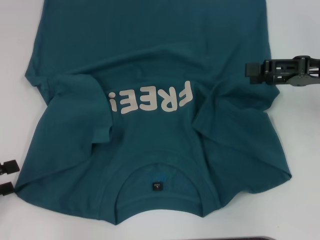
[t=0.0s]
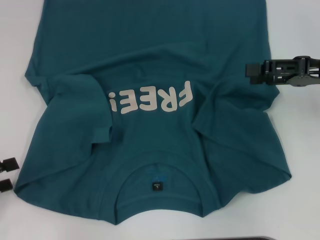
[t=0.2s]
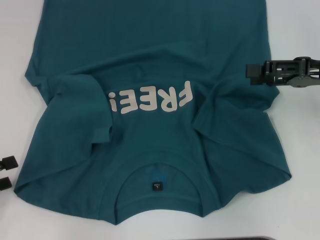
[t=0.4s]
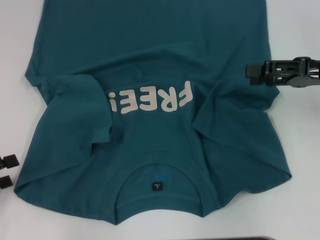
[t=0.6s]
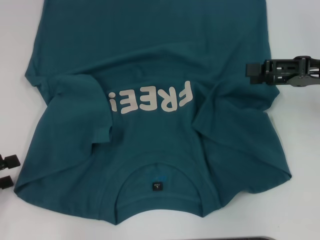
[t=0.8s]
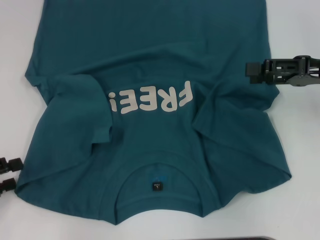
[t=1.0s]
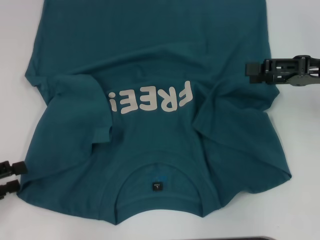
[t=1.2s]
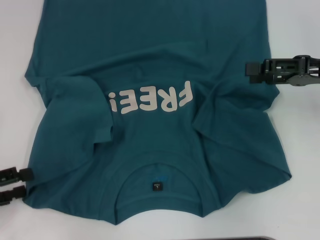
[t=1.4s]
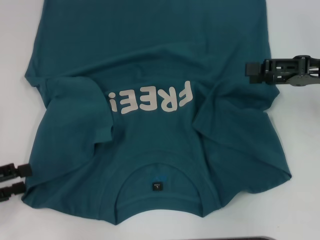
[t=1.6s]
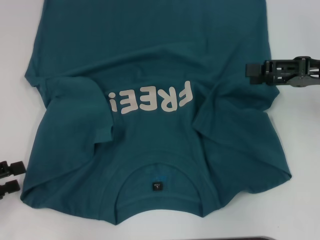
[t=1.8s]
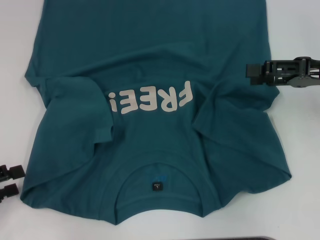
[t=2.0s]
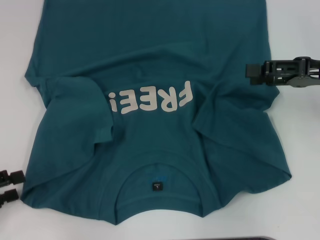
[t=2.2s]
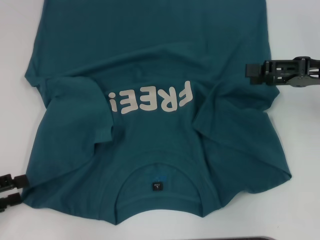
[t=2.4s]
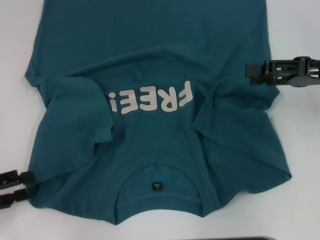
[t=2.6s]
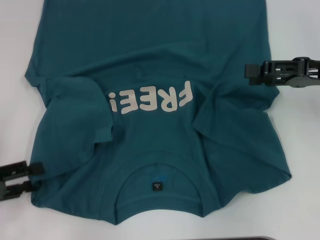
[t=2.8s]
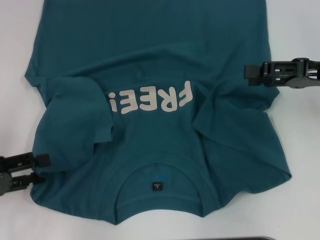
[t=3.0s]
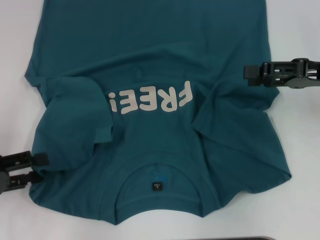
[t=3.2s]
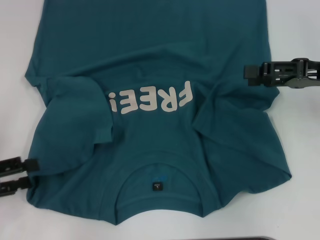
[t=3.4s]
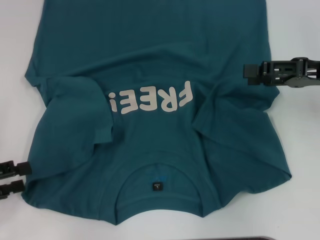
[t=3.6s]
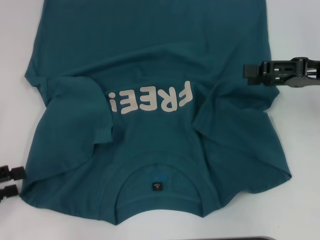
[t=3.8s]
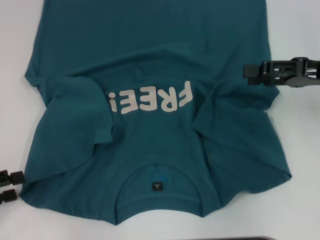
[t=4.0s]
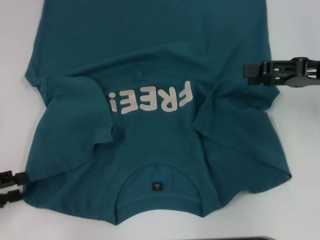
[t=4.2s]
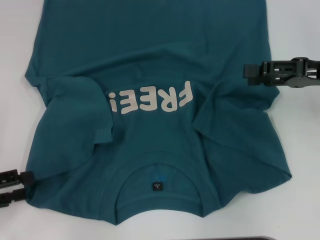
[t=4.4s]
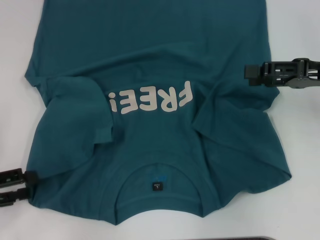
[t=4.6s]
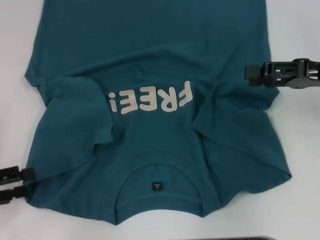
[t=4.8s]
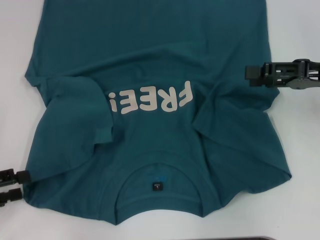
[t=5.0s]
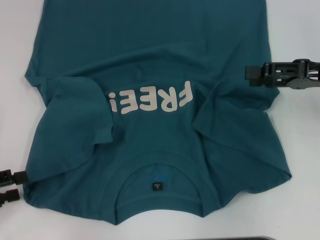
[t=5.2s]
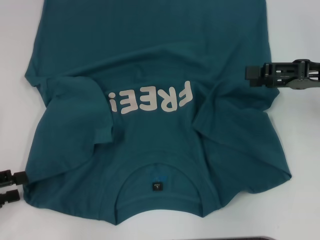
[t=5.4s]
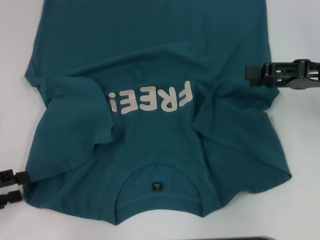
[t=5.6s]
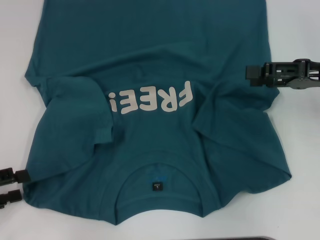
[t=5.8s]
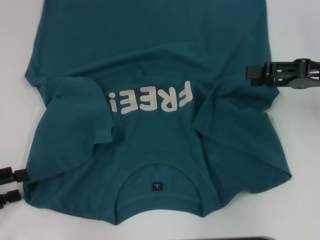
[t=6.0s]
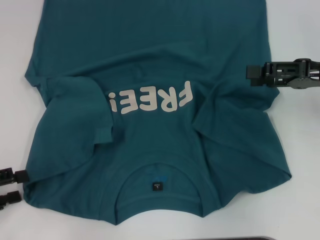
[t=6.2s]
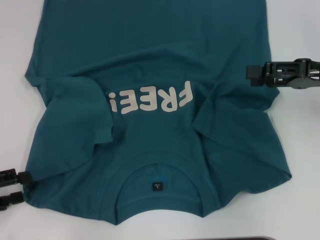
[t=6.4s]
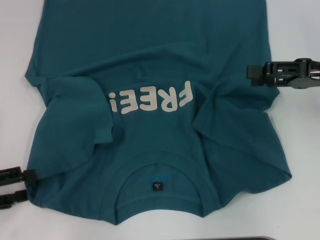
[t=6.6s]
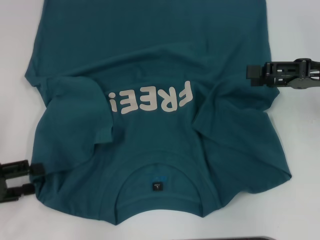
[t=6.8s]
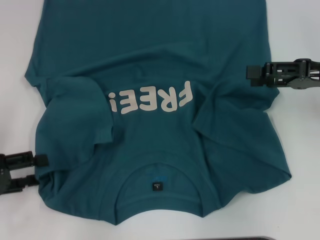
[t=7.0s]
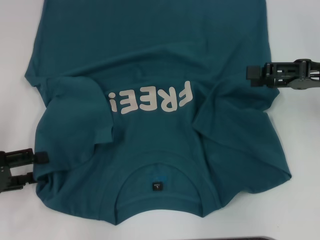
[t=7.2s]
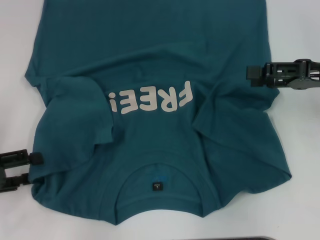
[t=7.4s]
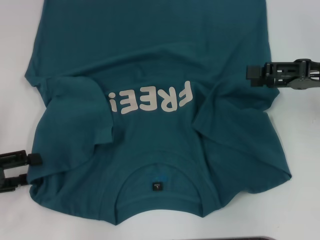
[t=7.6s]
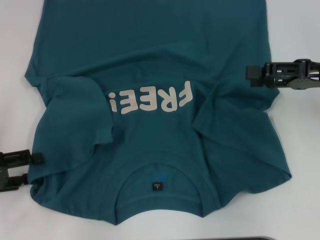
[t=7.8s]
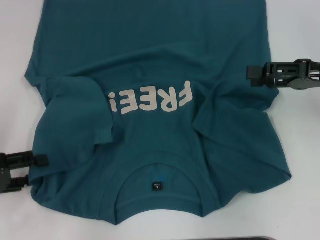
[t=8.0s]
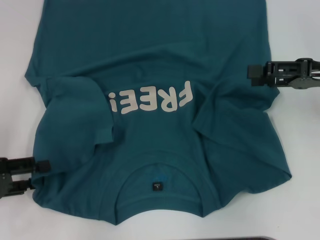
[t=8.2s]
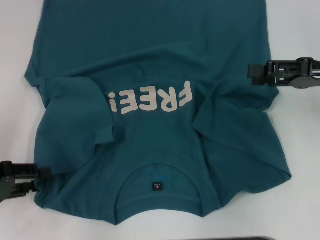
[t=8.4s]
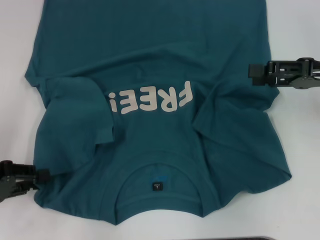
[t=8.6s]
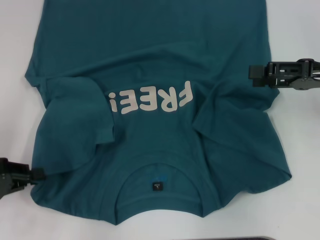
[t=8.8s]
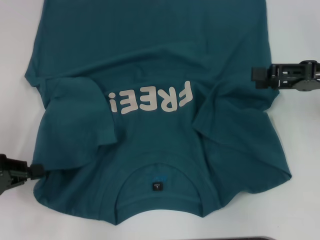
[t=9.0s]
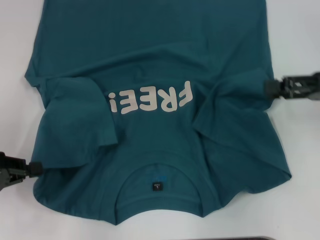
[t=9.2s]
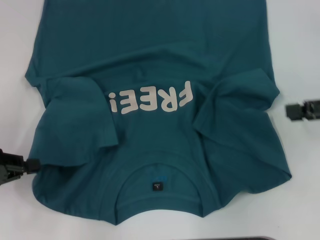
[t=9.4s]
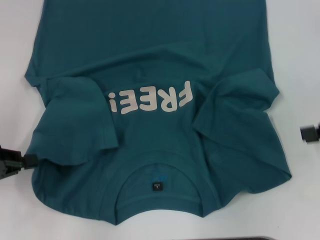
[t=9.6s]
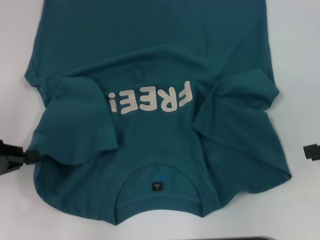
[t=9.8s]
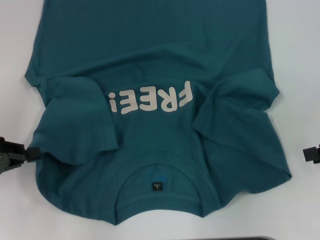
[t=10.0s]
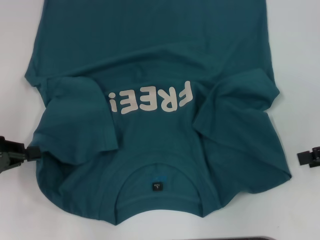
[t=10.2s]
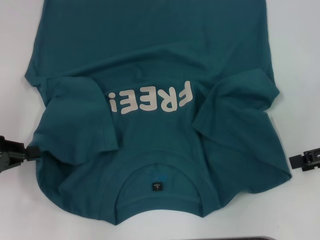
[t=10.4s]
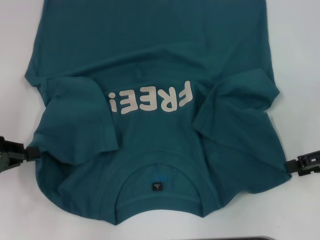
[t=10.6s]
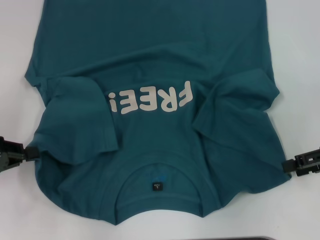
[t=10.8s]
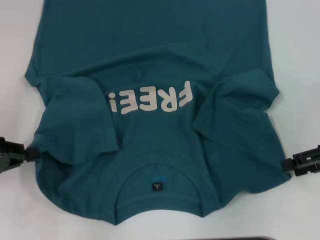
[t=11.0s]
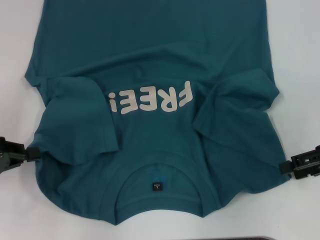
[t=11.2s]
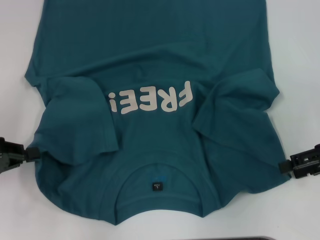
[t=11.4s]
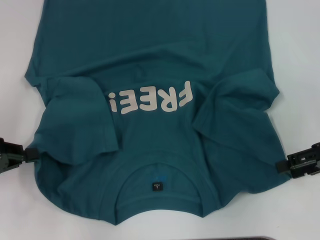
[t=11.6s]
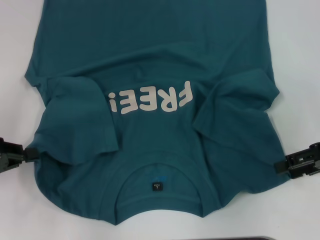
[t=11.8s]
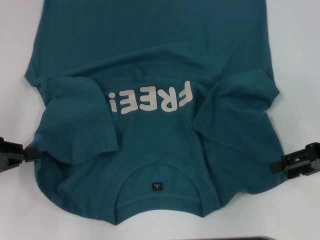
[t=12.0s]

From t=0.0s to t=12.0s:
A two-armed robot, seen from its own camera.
Step, from t=0.0s to t=9.0s: Grab the bottom left corner with your left hand.
From t=0.0s to t=7.6s: The grippers make only small movements.
From t=7.6s to t=9.0s: The left gripper closes its fingers.
From t=9.0s to t=10.4s: The right gripper shifts by about 5 cm.
From t=10.4s to t=12.0s: There are only small adjustments of the grippers.

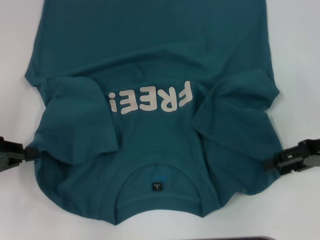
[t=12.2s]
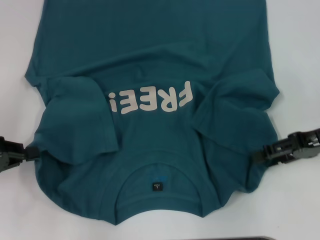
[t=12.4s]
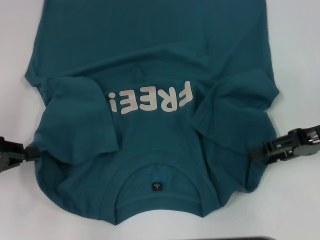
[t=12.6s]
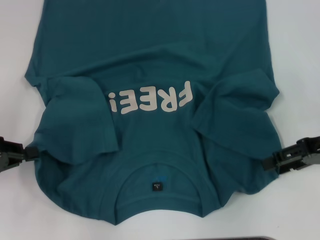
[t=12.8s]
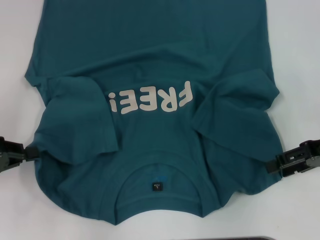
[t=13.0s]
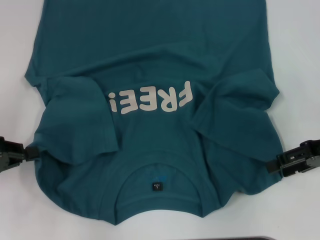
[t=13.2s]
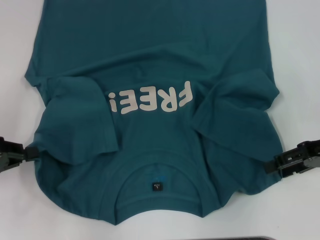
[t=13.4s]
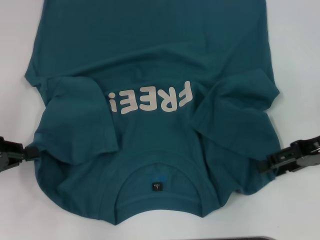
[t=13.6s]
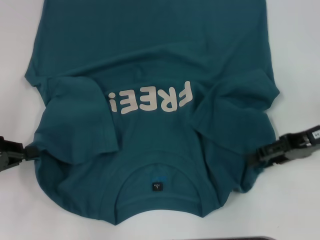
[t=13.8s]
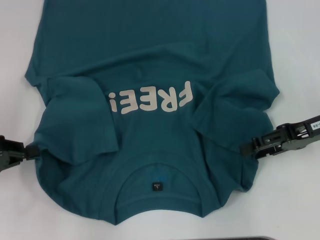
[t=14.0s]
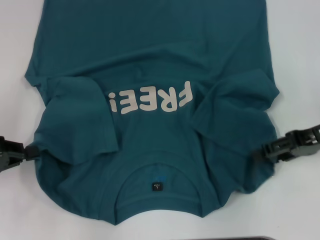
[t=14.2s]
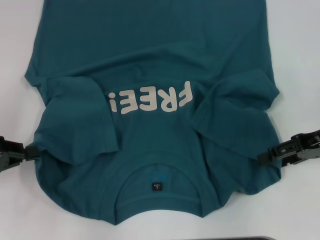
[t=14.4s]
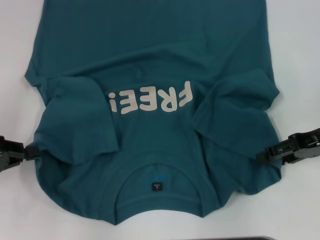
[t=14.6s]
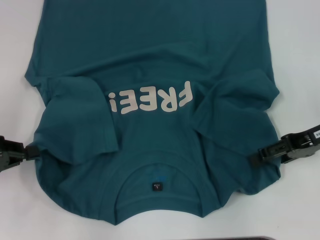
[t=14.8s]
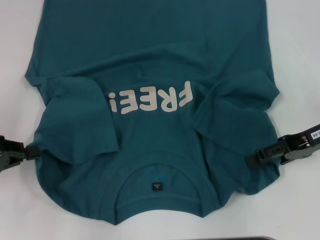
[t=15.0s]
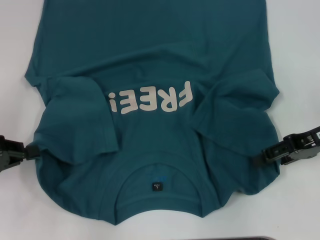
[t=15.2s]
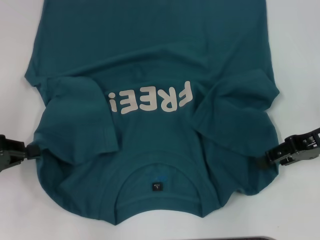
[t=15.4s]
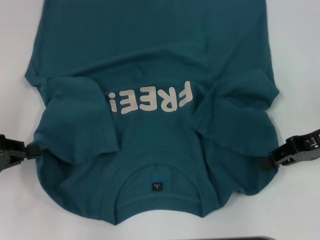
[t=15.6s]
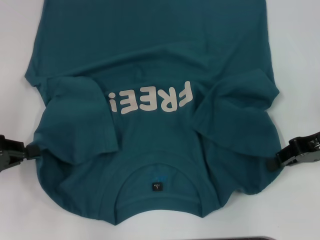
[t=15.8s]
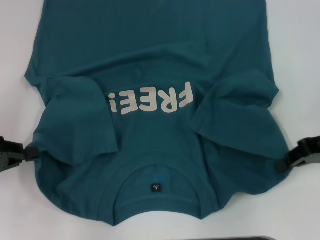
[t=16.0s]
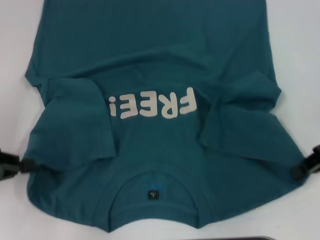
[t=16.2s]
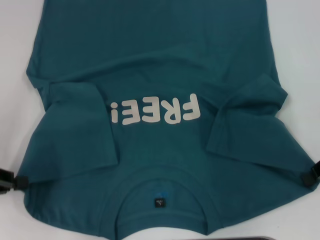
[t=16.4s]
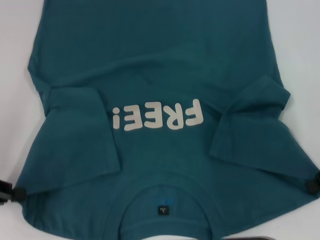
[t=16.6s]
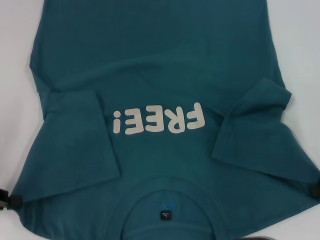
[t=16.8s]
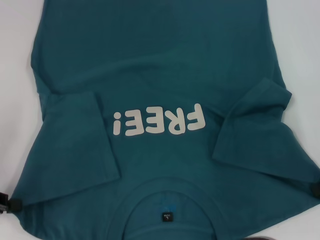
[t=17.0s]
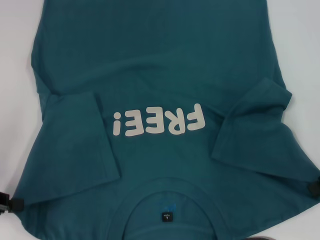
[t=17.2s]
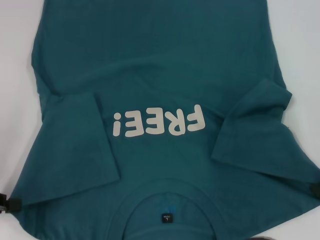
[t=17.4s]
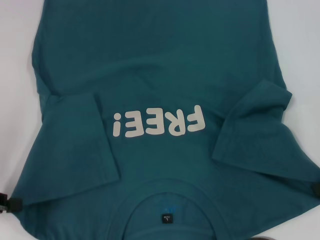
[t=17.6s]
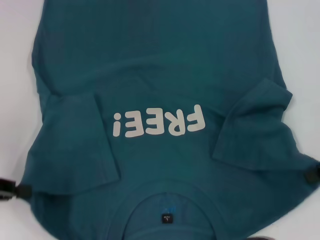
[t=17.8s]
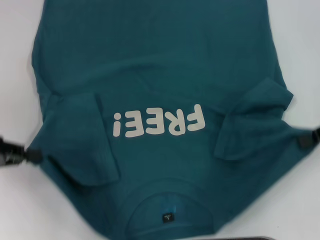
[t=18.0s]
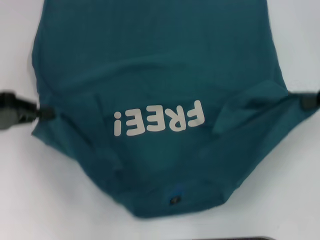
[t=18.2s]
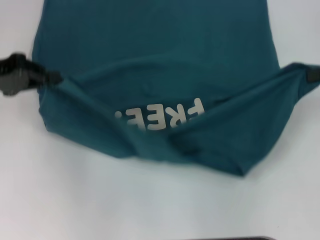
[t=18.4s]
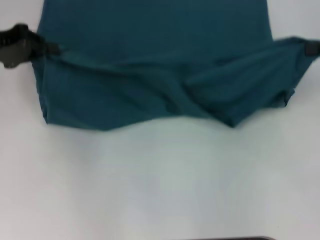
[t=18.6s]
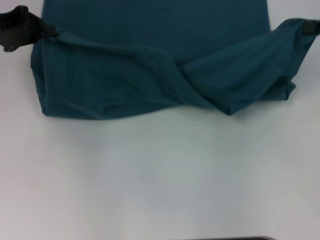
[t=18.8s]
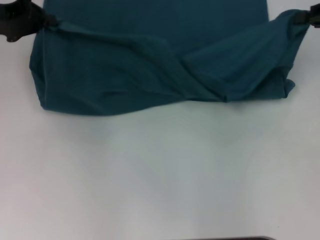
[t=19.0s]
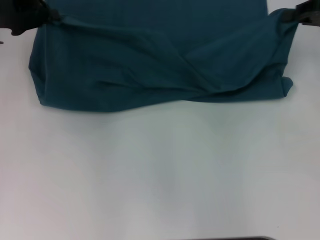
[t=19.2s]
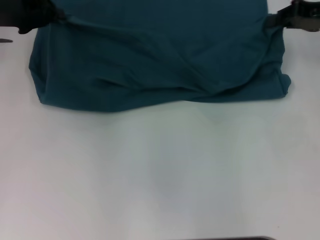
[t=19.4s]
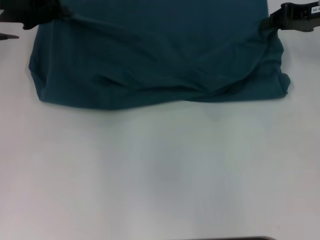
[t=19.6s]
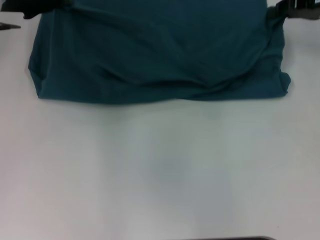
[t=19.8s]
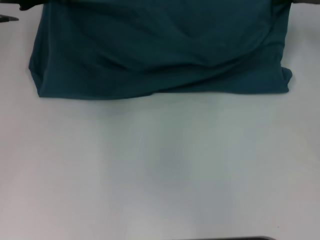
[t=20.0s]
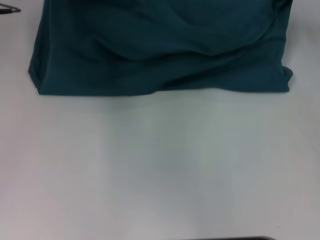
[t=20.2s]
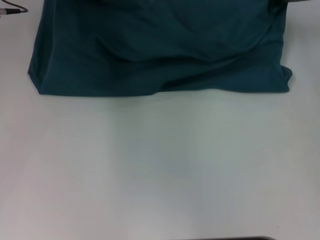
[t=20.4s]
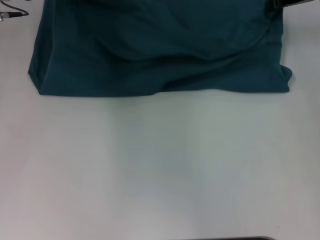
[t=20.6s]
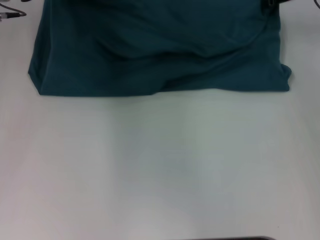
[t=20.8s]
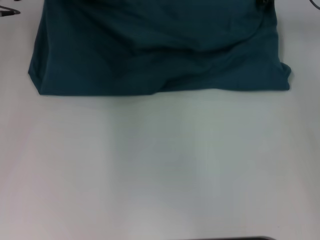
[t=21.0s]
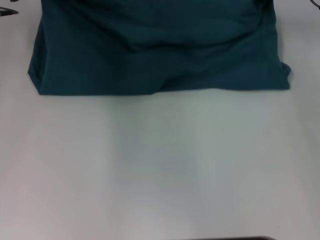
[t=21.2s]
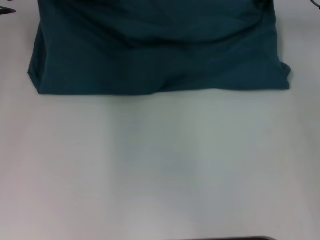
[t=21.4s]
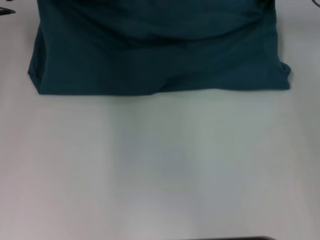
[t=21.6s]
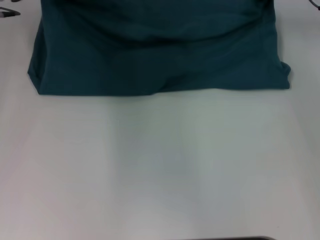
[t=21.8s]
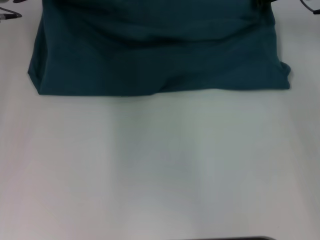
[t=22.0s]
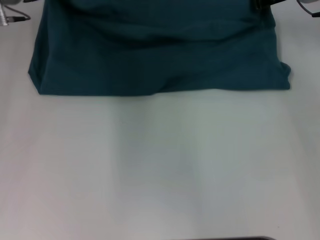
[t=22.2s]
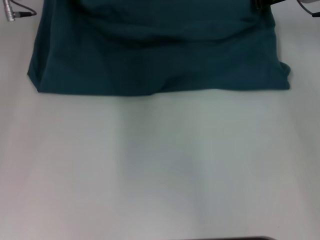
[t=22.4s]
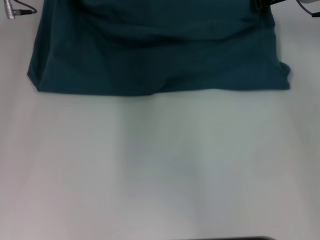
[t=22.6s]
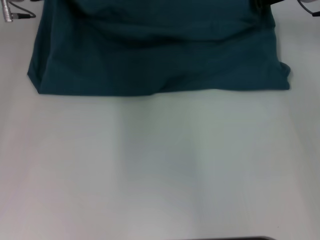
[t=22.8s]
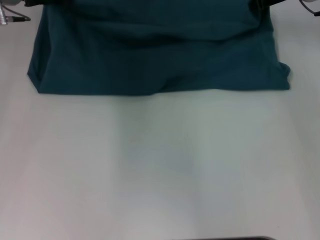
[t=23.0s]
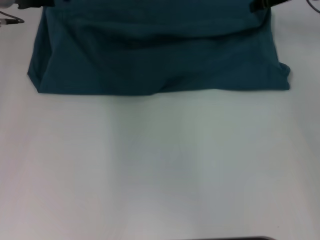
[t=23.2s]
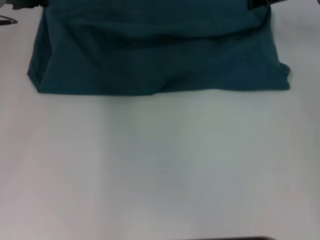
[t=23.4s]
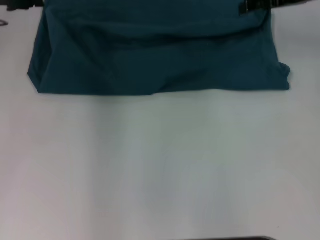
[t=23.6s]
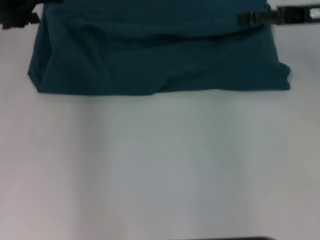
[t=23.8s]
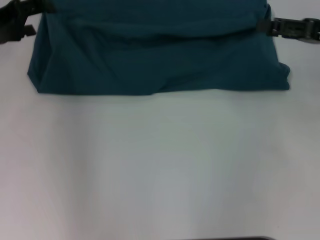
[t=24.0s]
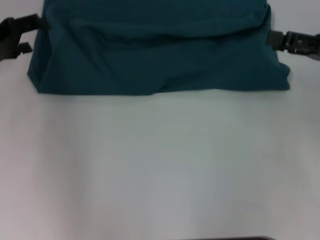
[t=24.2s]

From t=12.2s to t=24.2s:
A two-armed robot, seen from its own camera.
Step, from t=12.2s to t=15.8s: Grab the bottom right corner with your right hand.
Step, from t=16.0s to t=23.4s: Fold the clothes to the left.
Step, from t=16.0s to t=23.4s: Fold the clothes to the right.
From t=12.2s to t=15.2s: The grippers stay close to where they were, moving slightly.
From t=15.2s to t=16.6s: The right gripper closes.
From t=16.6s to t=18.2s: The right gripper is displaced upward by about 5 cm, while the left gripper is displaced forward and upward by some 10 cm.
From t=18.2s to t=19.8s: The right gripper is displaced forward and to the left by roughly 15 cm. The left gripper heads forward and to the right, covering about 15 cm.
From t=19.8s to t=21.2s: The right gripper travels to the left by approximately 5 cm.
From t=21.2s to t=22.6s: The grippers make only small movements.
From t=22.6s to t=24.2s: The left gripper moves backward and to the left, roughly 15 cm, and opens, while the right gripper moves backward and to the right, some 20 cm, and opens up.
